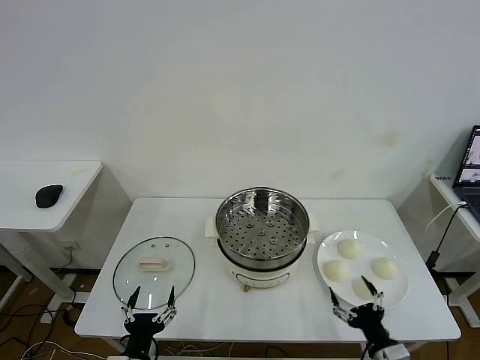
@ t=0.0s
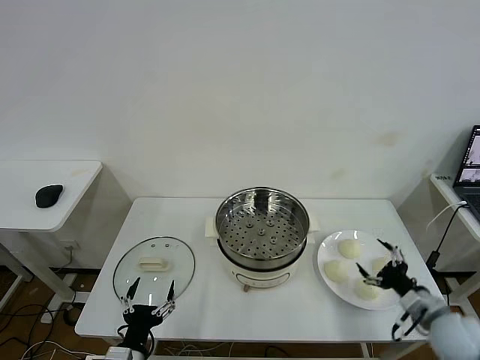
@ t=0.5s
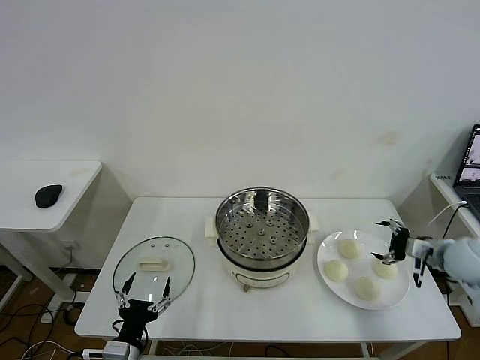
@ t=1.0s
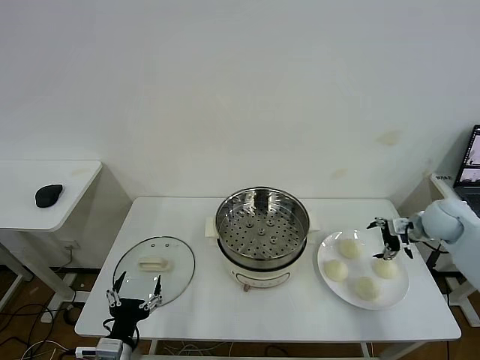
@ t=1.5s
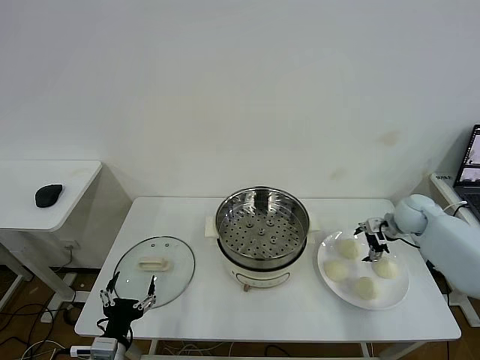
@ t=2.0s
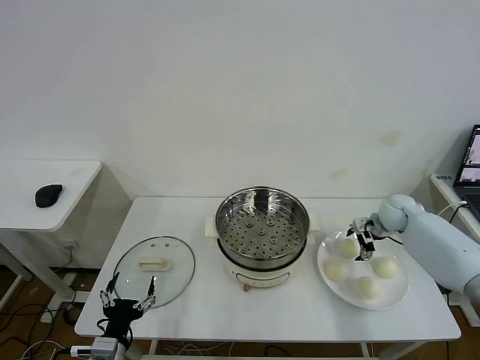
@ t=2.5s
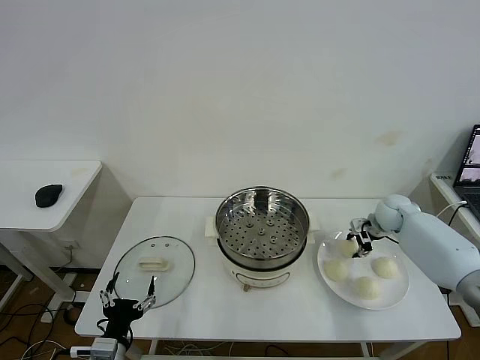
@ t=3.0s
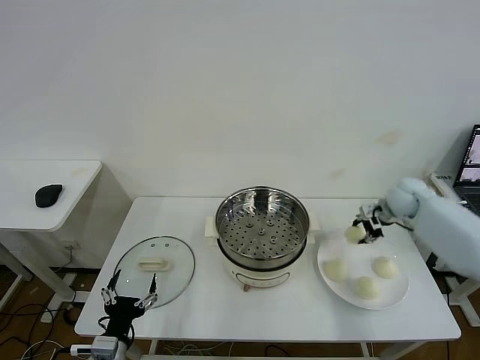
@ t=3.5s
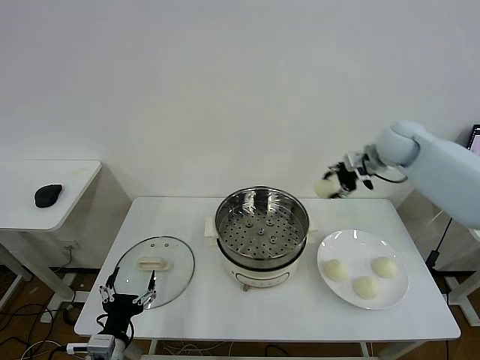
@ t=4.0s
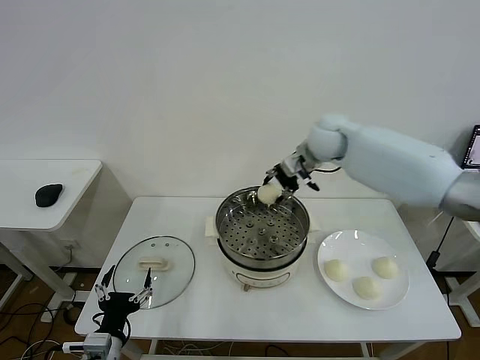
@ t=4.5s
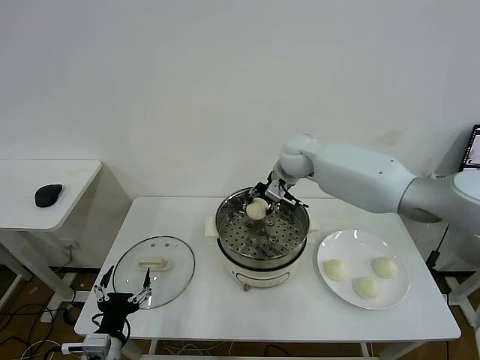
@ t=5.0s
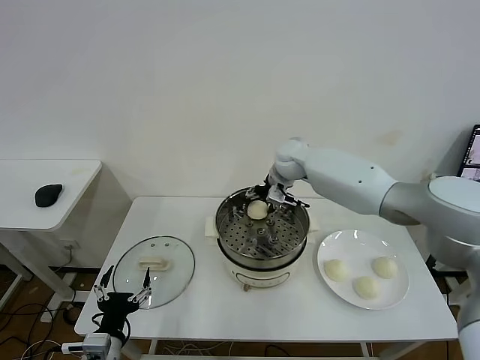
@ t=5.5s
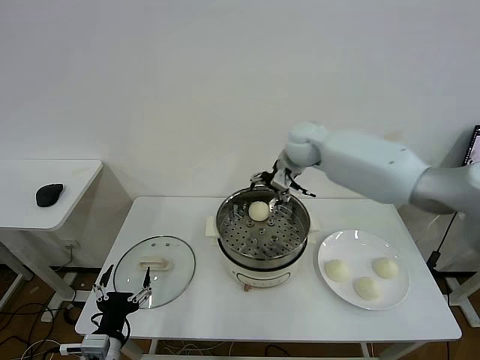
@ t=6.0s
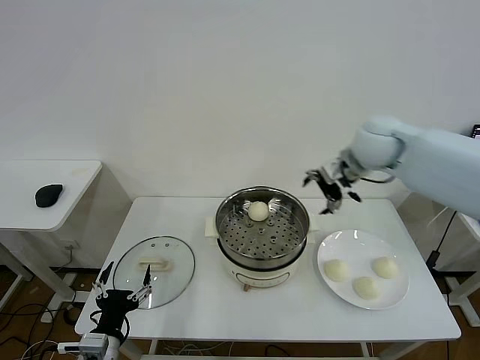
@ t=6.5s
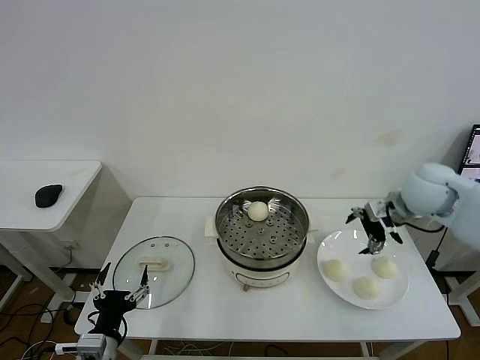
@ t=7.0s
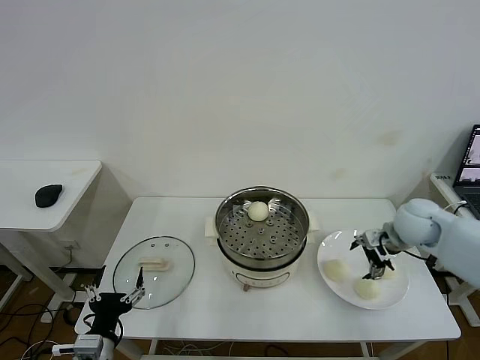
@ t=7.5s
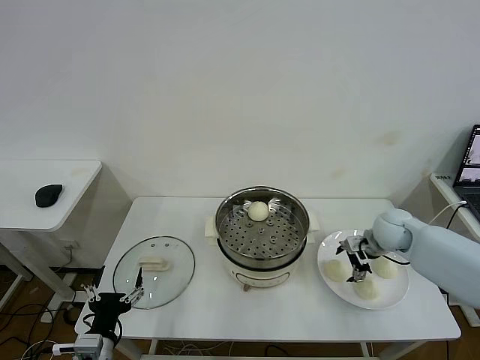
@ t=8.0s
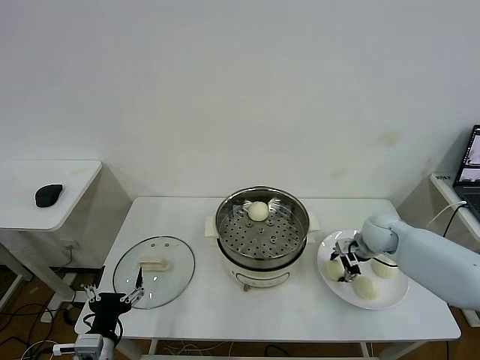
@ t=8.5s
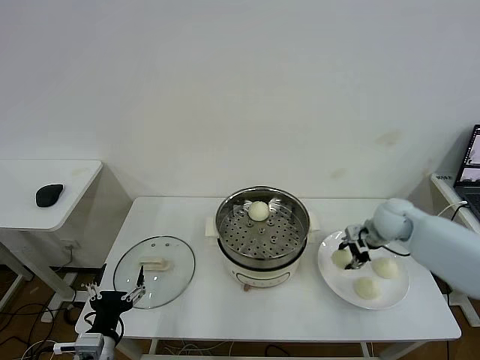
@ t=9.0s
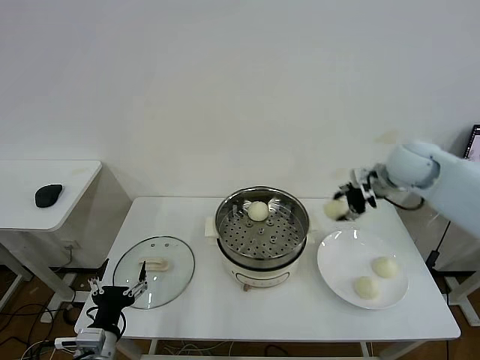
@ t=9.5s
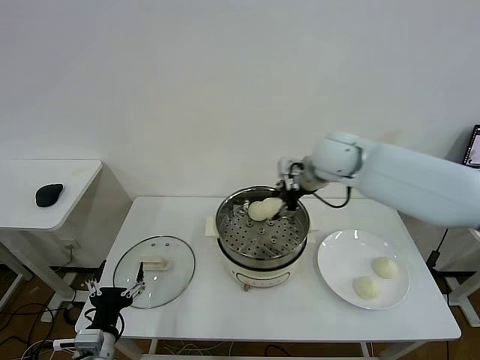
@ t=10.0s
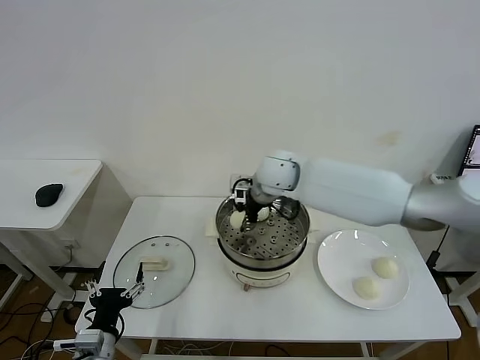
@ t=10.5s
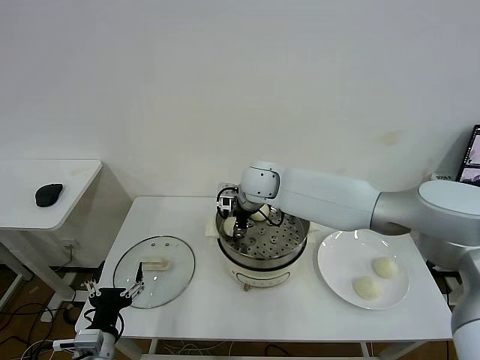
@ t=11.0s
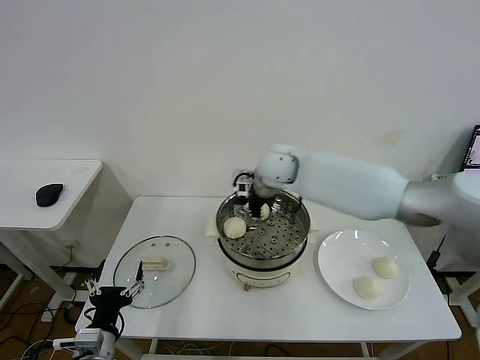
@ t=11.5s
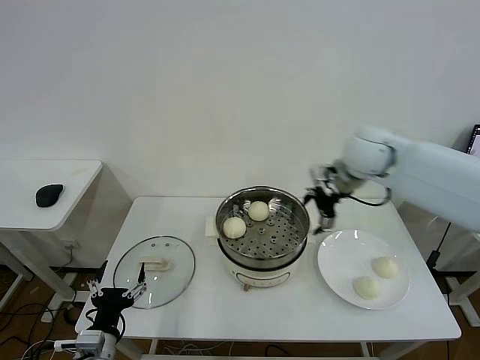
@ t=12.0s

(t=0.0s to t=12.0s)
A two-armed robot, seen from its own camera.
Task of the whole recording: take steamed baozi put them in steamer then cover it.
Step, t=0.0s - t=2.5s: Grasp the baozi in the plate with right gripper.
Step, t=3.5s - t=5.5s: Place the baozi on the steamer with right gripper.
Step, t=6.0s - t=8.5s: Grasp the baozi in the plate with right gripper.
Step, t=9.0s - t=11.0s: Place the baozi on the steamer with right gripper.
t=2.0s - t=4.0s: The right gripper is displaced upward and to the left by roughly 25 cm, and closes.
t=4.0s - t=6.0s: The right gripper shifts approximately 15 cm to the left, and opens.
t=6.0s - t=8.0s: The right gripper heads downward, to the right and backward, covering roughly 30 cm.
t=8.0s - t=10.0s: The right gripper goes some 25 cm to the left and upward, and closes.
t=10.0s - t=12.0s: The right gripper shifts roughly 10 cm to the right, and opens up.

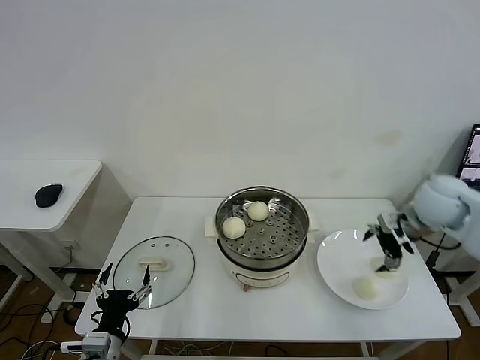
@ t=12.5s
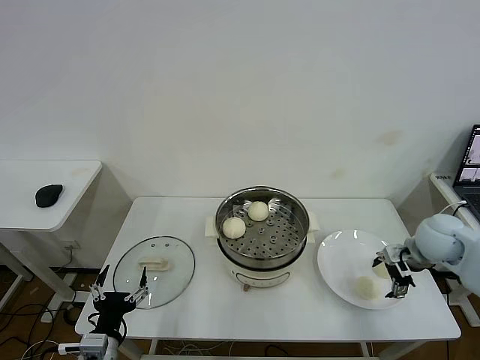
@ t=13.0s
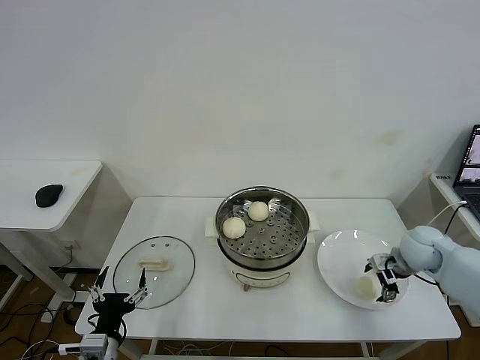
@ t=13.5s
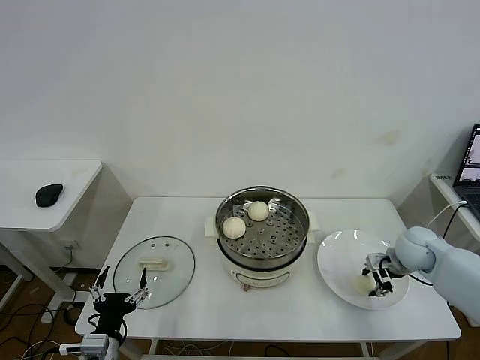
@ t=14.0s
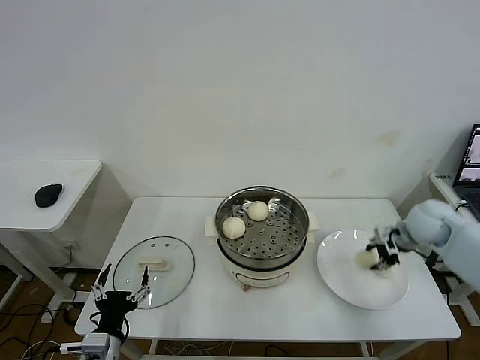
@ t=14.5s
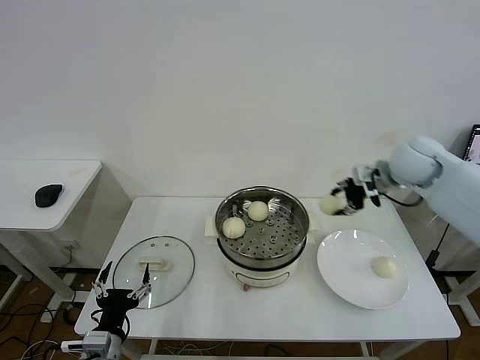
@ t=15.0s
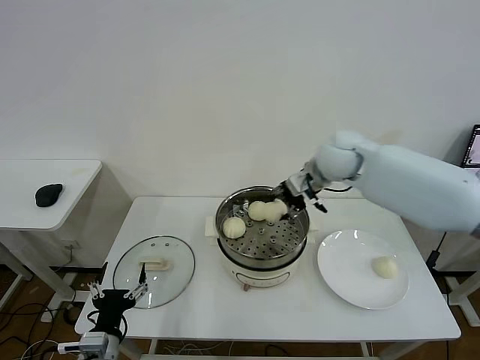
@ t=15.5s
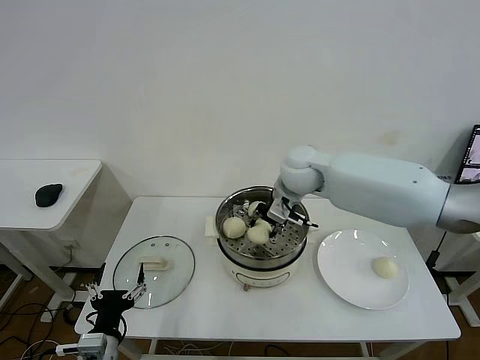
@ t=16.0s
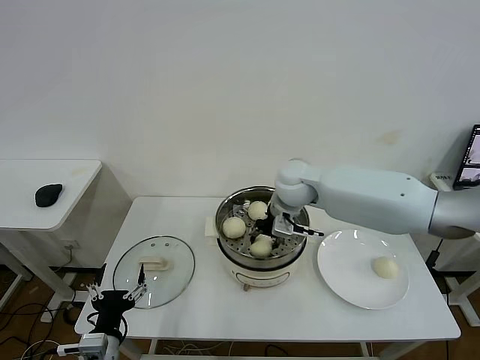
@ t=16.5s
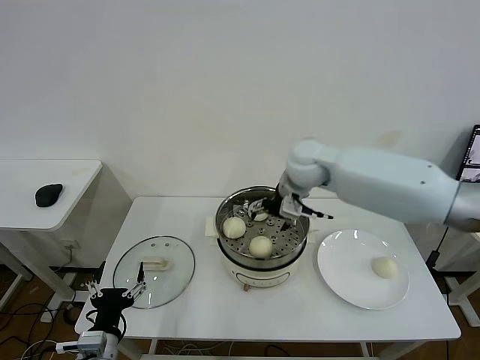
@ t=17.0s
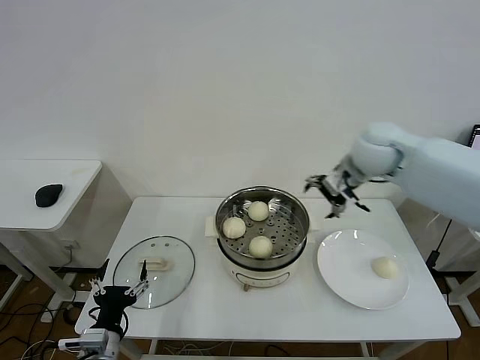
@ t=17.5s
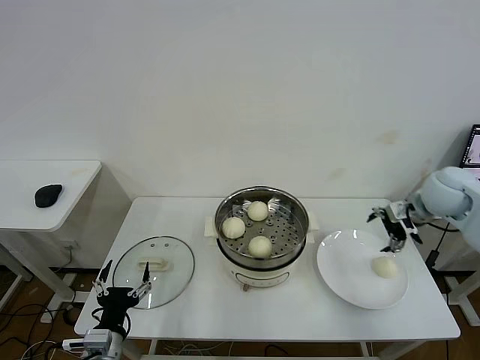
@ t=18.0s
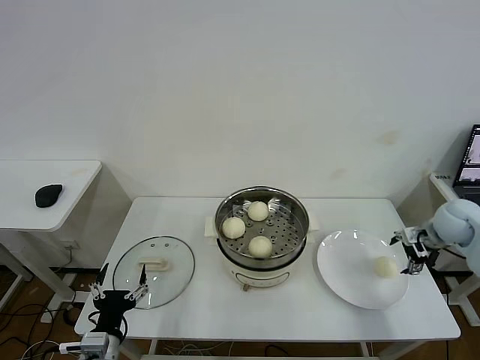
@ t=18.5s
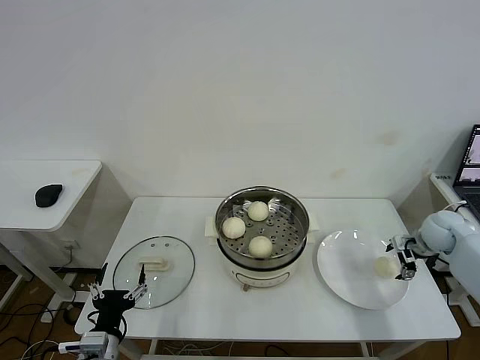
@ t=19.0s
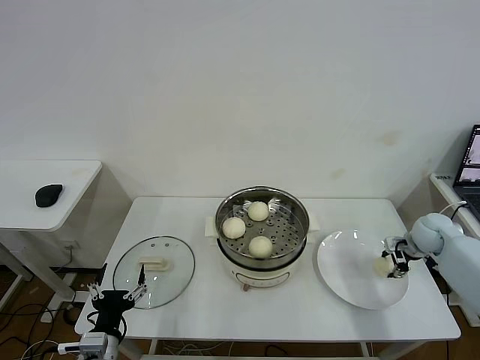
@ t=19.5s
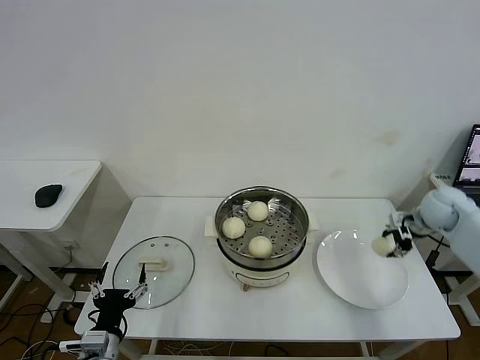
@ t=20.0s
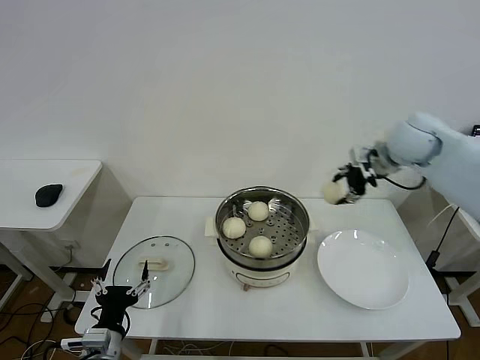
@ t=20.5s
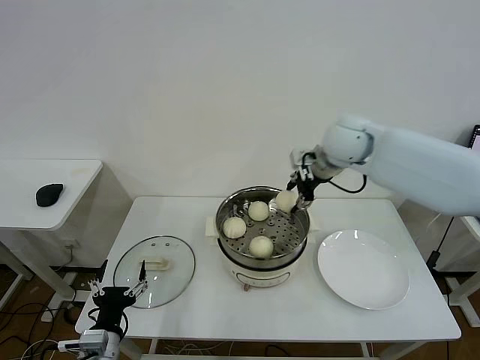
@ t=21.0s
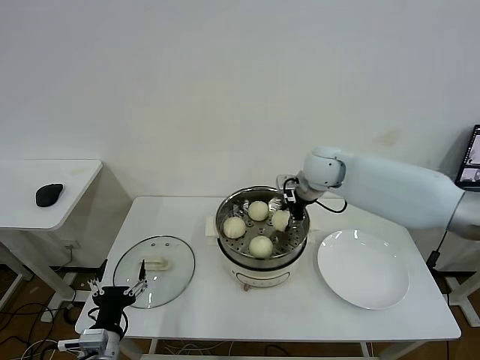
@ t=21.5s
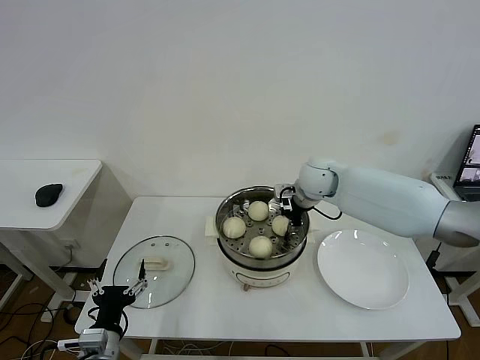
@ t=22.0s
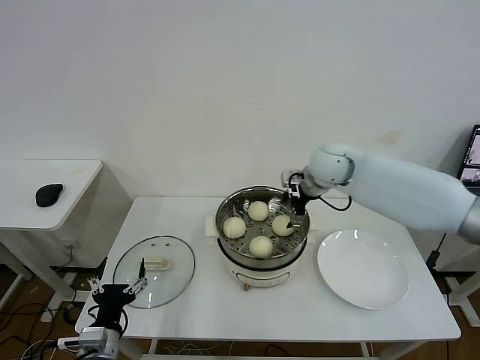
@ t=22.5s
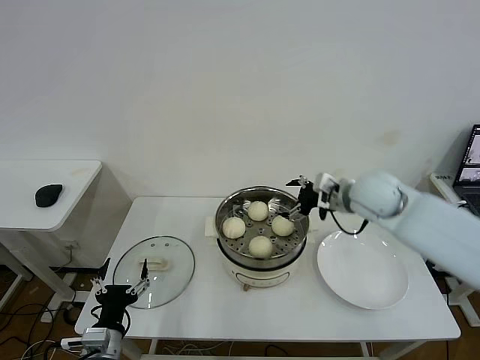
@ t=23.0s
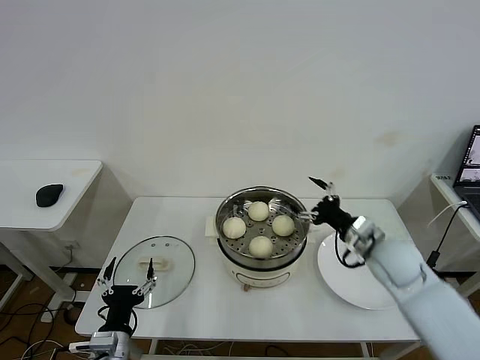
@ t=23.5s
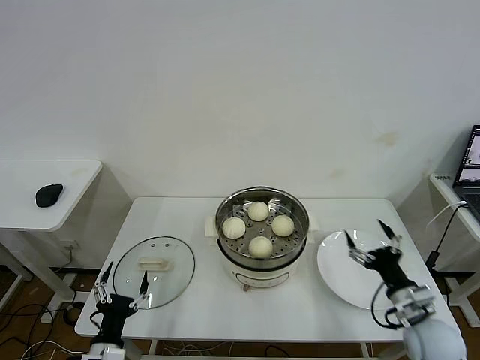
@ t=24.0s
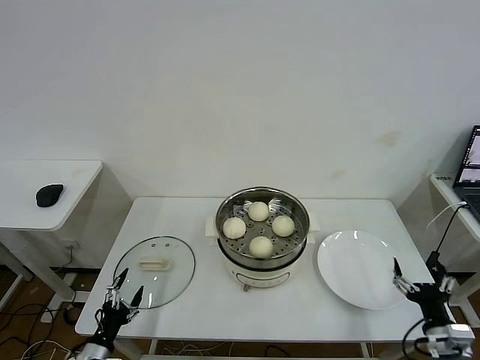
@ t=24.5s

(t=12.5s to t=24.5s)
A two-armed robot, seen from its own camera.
Task of the whole recording: take steamed baozi put them in steamer then cover it.
Step, t=12.5s - t=14.0s: Grasp the baozi in the plate with right gripper.
Step, t=14.5s - t=16.5s: Place the baozi on the steamer with right gripper.
Step, t=17.0s - t=19.0s: Grasp the baozi in the plate with right gripper.
Step, t=20.0s - t=22.0s: Place the baozi on the steamer with right gripper.
t=12.5s - t=14.5s: The right gripper closes up.
t=14.5s - t=16.5s: The right gripper is displaced to the left by about 30 cm.
t=16.5s - t=18.5s: The right gripper travels to the right by about 35 cm, and opens its fingers.
t=18.5s - t=20.5s: The right gripper moves upward and to the left, approximately 25 cm, and closes.
t=20.5s - t=22.5s: The right gripper is displaced to the left and downward by approximately 15 cm, and opens up.
t=22.5s - t=24.5s: The left gripper moves downward and to the left, about 10 cm, while the right gripper goes roughly 50 cm backward, downward and to the right.

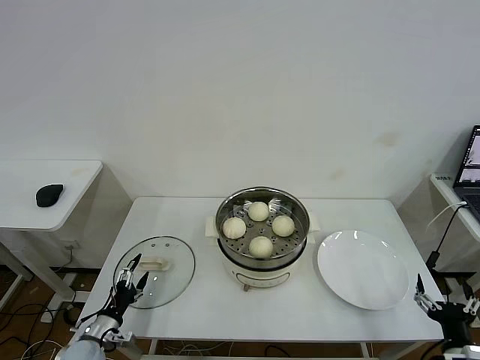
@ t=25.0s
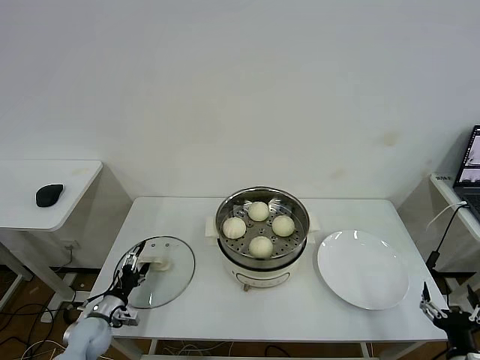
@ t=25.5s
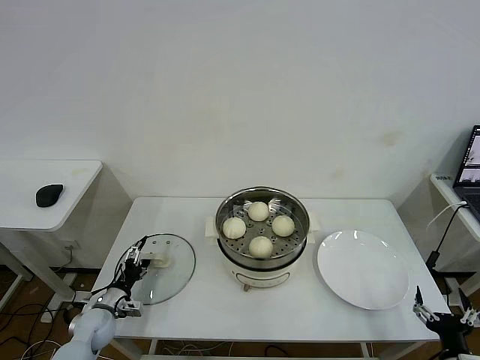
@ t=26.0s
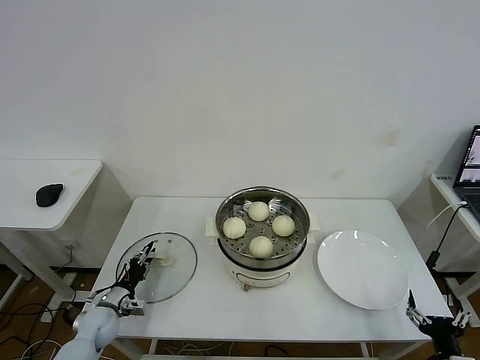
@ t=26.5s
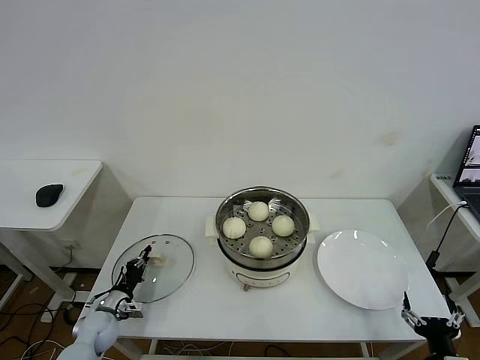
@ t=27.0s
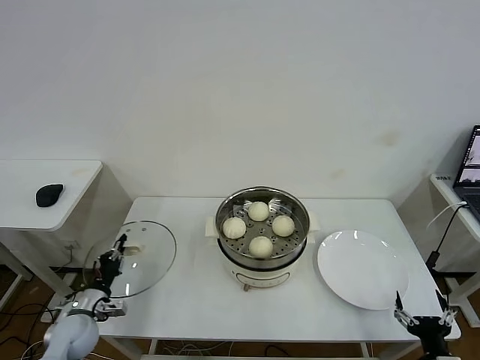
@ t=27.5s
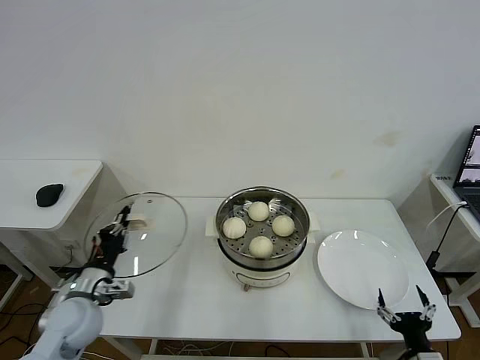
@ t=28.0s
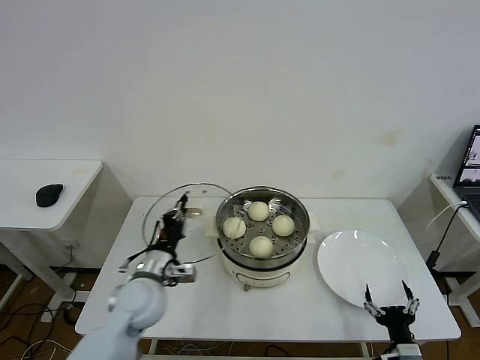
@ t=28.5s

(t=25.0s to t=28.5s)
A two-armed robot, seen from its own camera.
Task of the whole recording: take steamed baozi put them in steamer then cover it.
t=25.0s - t=27.0s: The left gripper goes about 10 cm forward, and closes up.
t=27.0s - t=28.5s: The left gripper heads upward and to the right, covering approximately 25 cm. Meanwhile the right gripper is displaced to the left by roughly 5 cm.
